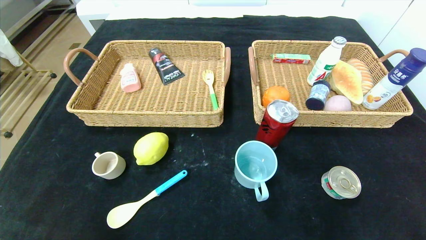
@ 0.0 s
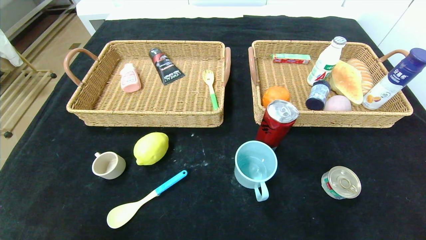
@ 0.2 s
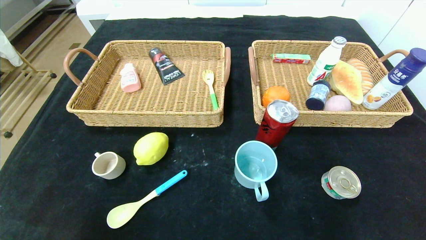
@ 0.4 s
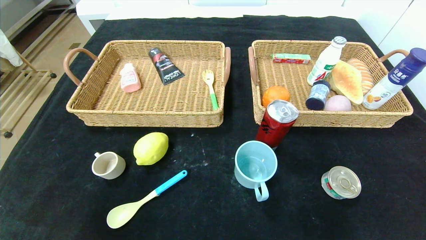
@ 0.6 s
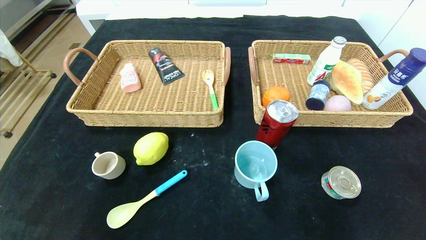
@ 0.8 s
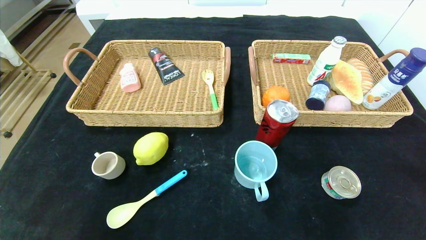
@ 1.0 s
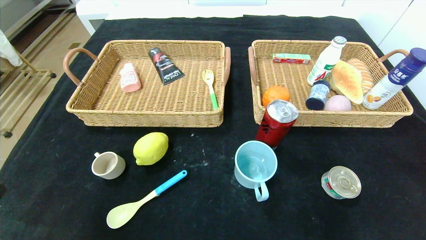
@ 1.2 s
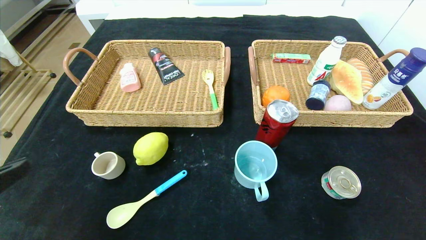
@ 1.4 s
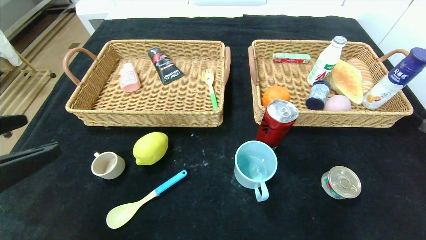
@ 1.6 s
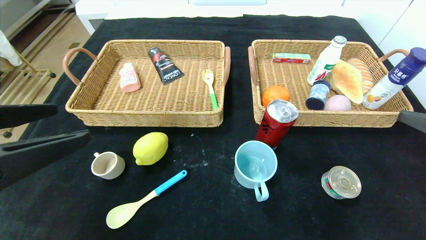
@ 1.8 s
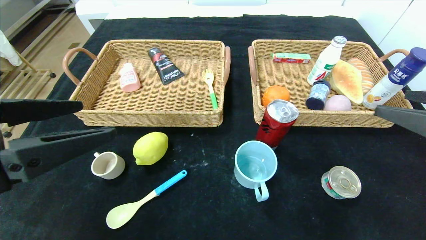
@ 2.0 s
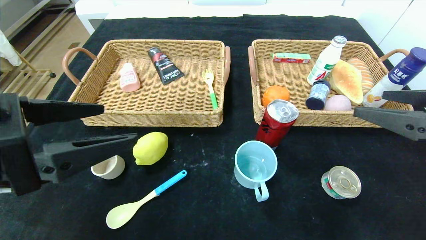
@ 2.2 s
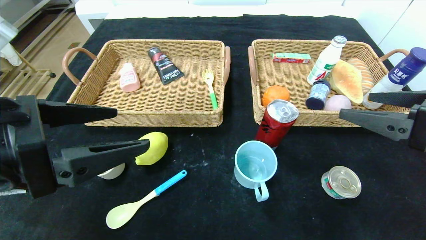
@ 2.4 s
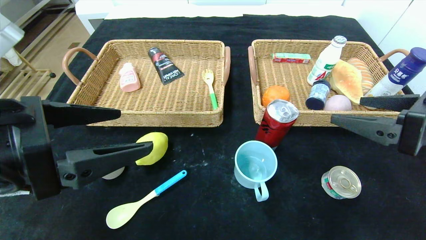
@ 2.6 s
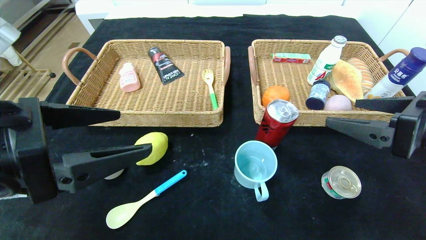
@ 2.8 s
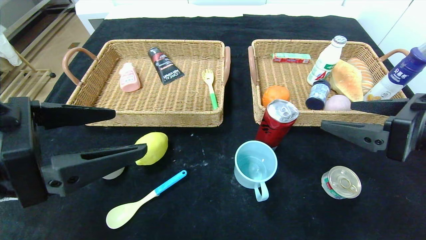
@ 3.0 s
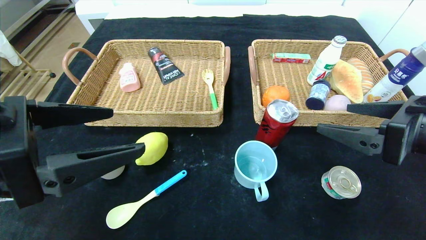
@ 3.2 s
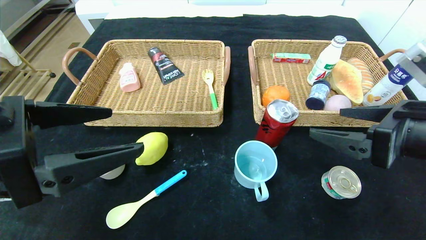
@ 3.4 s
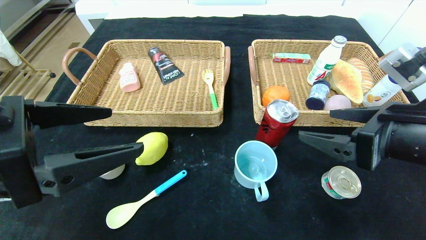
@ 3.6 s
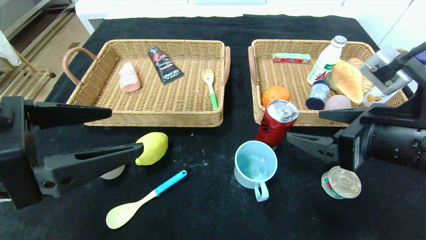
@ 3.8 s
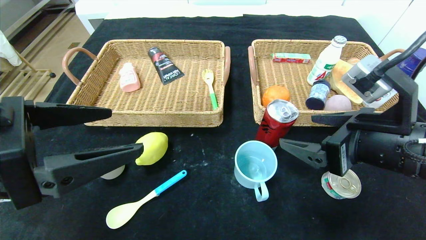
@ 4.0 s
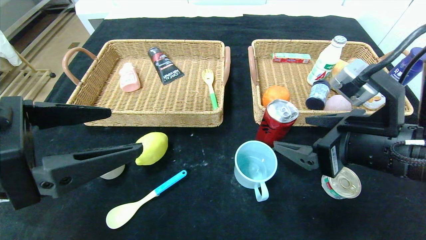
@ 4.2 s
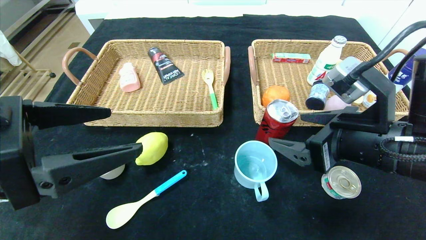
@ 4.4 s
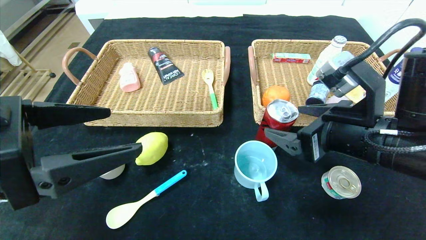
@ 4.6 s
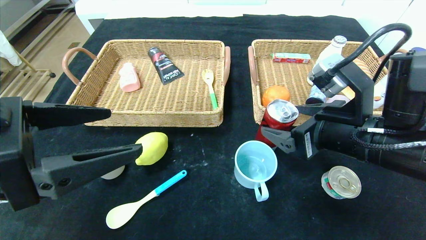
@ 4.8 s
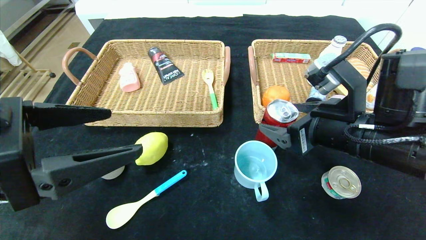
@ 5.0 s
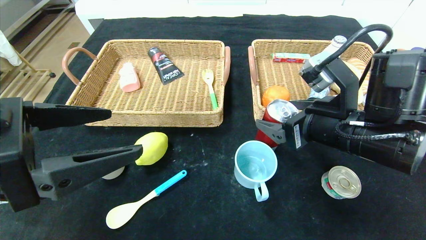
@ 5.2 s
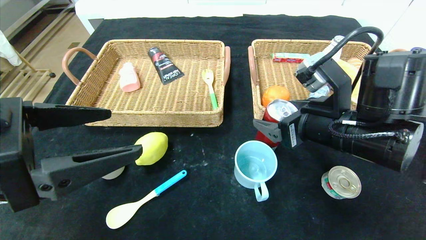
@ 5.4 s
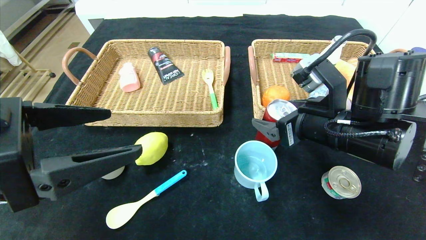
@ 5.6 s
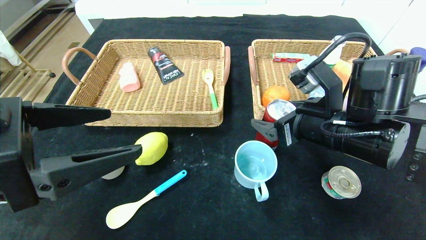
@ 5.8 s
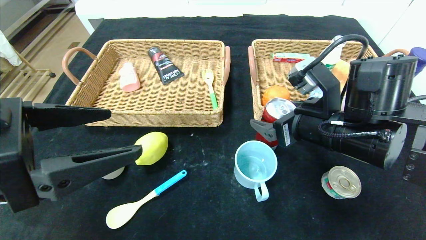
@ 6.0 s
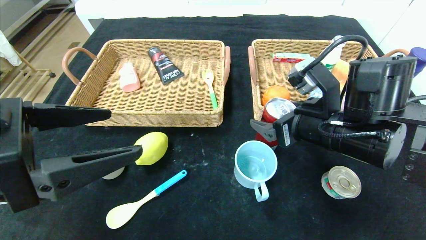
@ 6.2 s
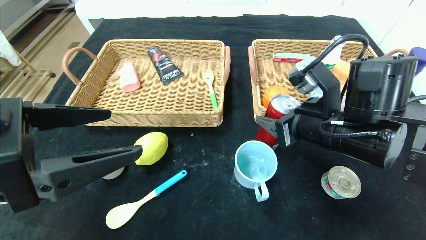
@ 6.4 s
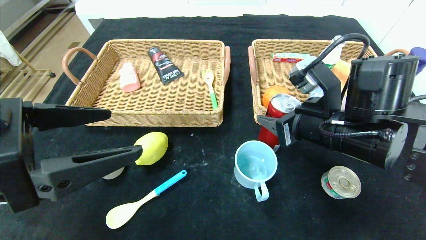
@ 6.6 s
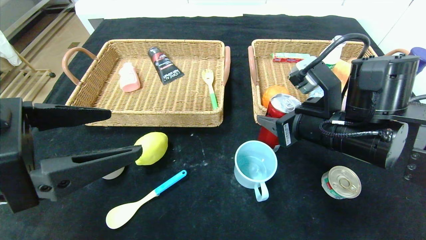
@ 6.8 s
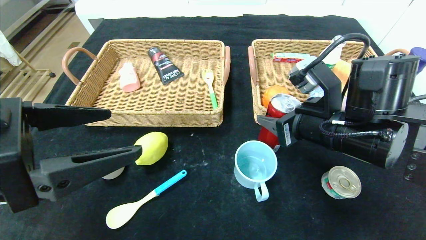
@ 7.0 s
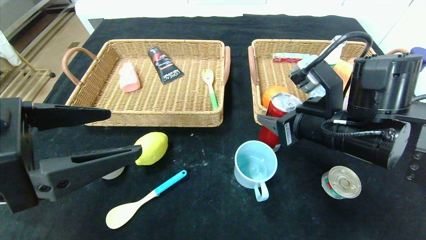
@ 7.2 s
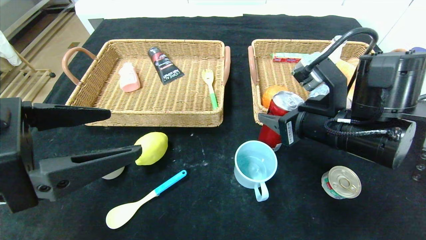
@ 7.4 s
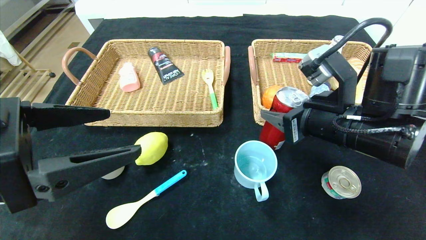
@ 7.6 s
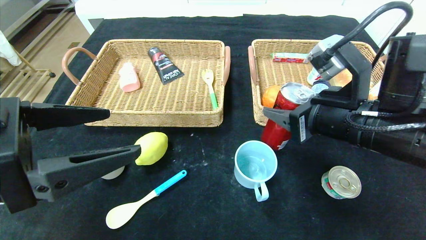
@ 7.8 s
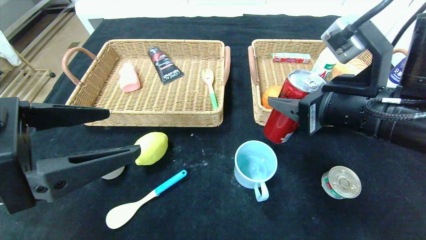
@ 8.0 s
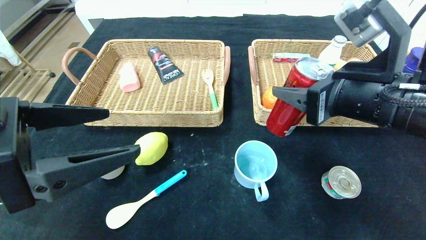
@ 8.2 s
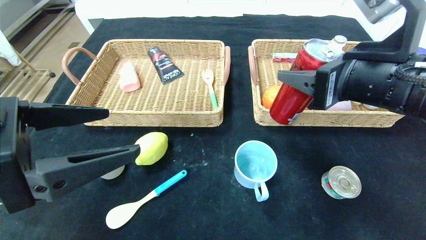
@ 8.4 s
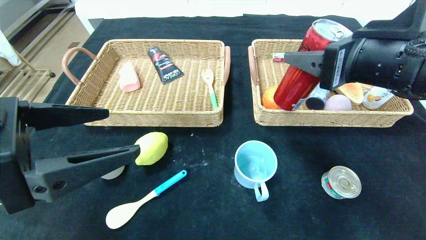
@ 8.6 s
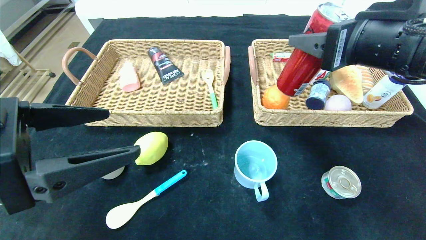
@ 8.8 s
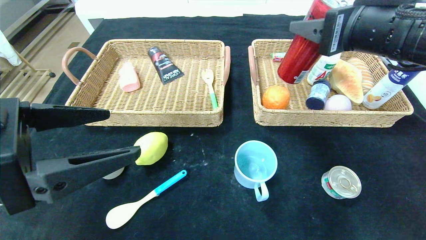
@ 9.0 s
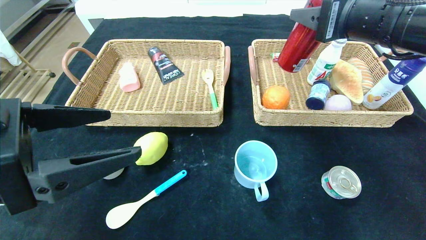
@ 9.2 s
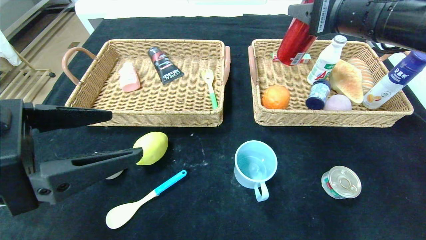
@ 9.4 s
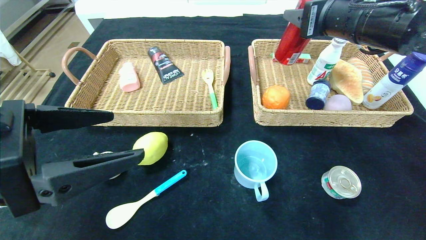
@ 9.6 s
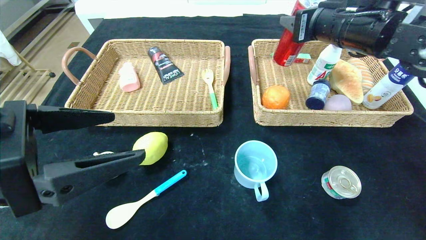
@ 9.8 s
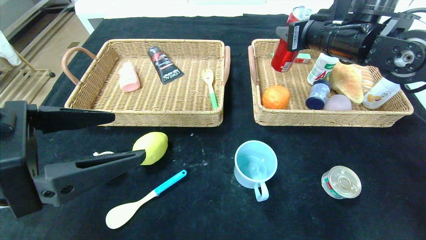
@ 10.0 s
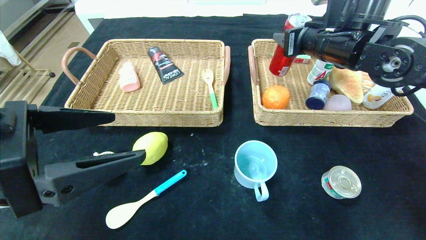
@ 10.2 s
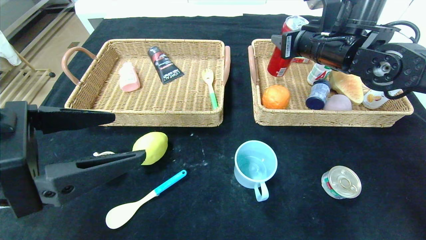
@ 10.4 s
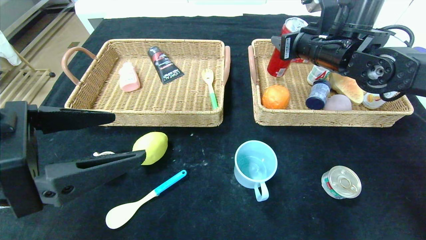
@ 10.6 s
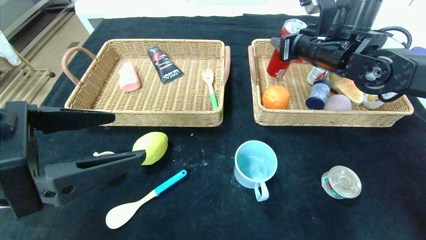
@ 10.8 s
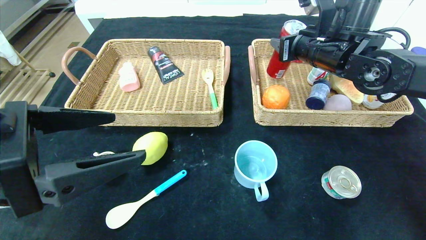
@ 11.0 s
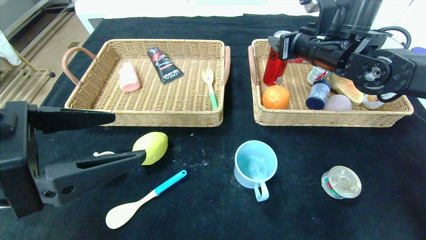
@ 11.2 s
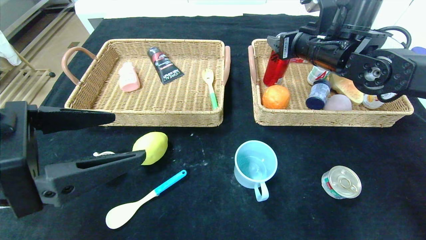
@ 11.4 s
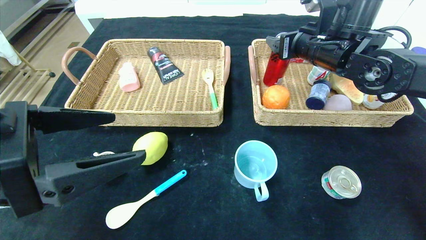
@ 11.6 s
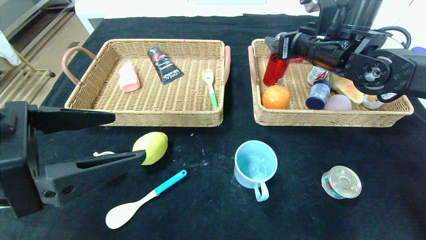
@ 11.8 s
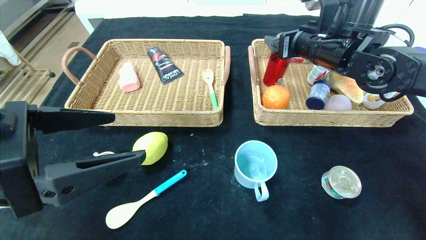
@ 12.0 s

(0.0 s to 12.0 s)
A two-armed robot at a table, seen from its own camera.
Step, 0.0 s - 12.0 s: Grasp the canned cola and put it in the right basket.
0.0 s - 1.6 s: Both grippers move upward and forward, roughly 25 cm.
1.6 s - 3.0 s: The left gripper travels forward by roughly 5 cm. The right gripper is displaced to the left and forward by roughly 10 cm.
3.0 s - 4.4 s: The right gripper moves to the left, roughly 5 cm.
4.4 s - 6.0 s: The right gripper shifts about 5 cm forward.
6.0 s - 7.6 s: The right gripper closes its fingers.
7.6 s - 9.0 s: The right gripper shifts roughly 10 cm upward.
9.0 s - 10.4 s: The right gripper travels forward by roughly 15 cm.
10.4 s - 12.0 s: The right gripper opens its fingers.

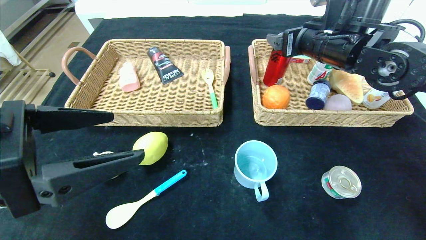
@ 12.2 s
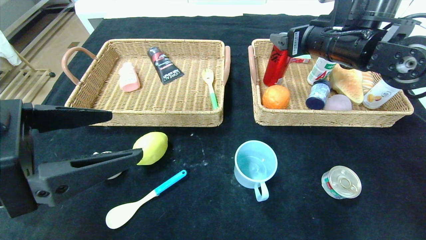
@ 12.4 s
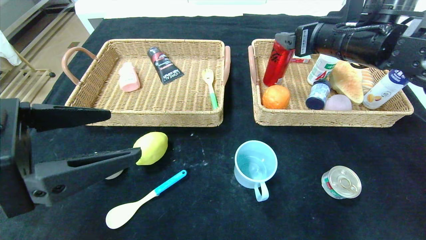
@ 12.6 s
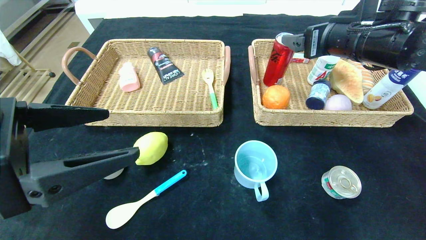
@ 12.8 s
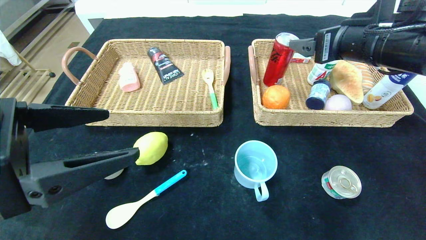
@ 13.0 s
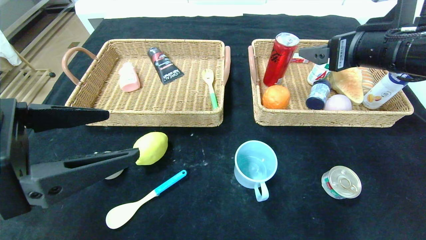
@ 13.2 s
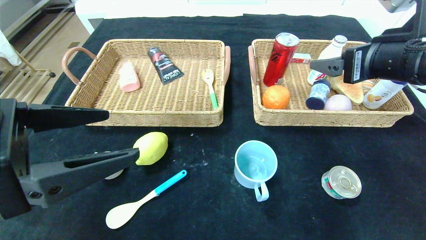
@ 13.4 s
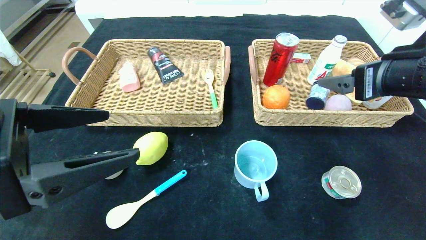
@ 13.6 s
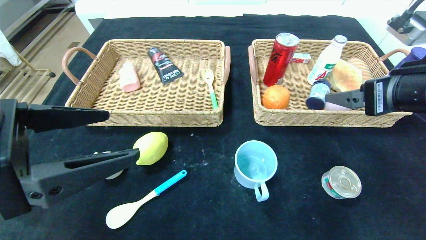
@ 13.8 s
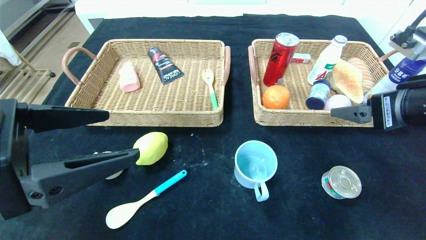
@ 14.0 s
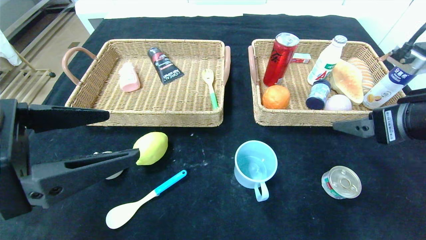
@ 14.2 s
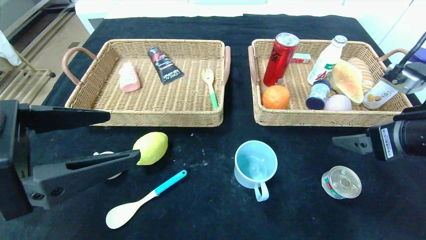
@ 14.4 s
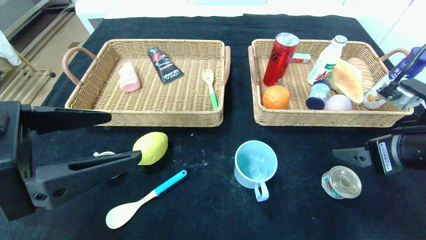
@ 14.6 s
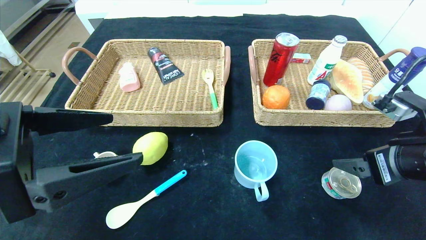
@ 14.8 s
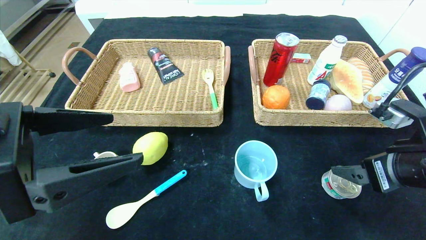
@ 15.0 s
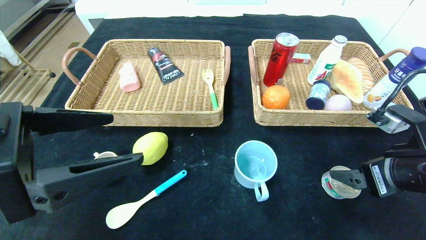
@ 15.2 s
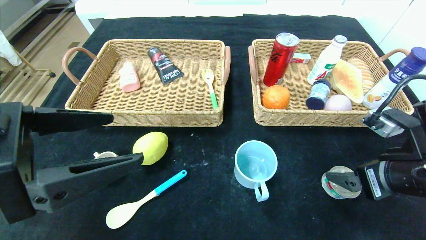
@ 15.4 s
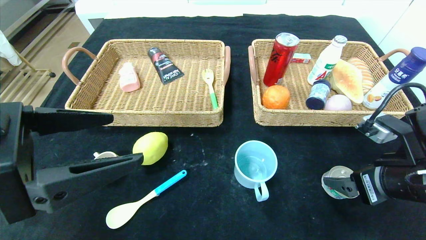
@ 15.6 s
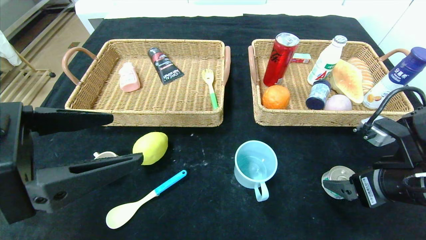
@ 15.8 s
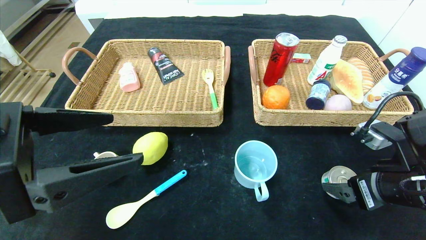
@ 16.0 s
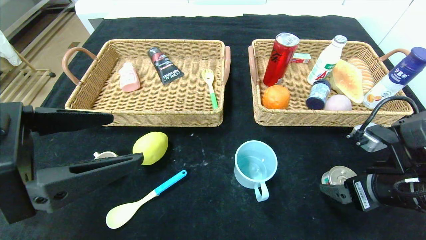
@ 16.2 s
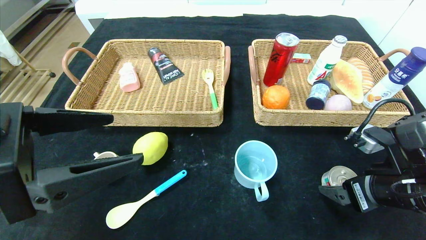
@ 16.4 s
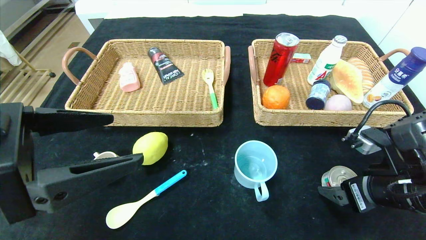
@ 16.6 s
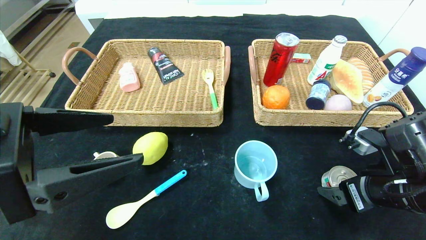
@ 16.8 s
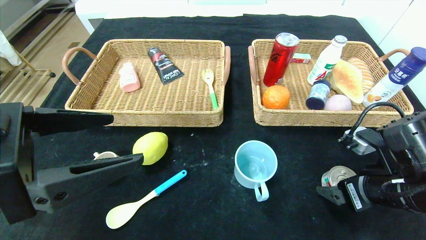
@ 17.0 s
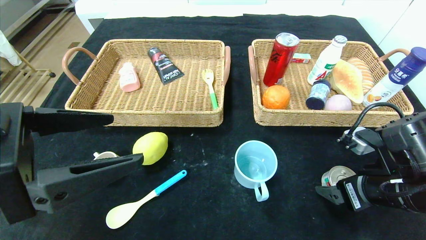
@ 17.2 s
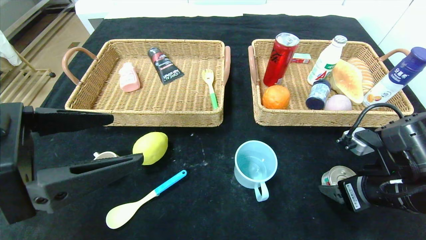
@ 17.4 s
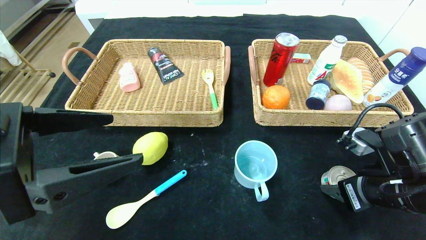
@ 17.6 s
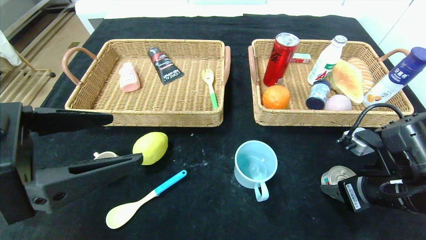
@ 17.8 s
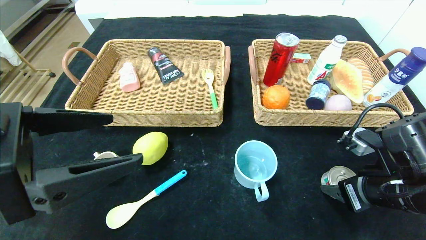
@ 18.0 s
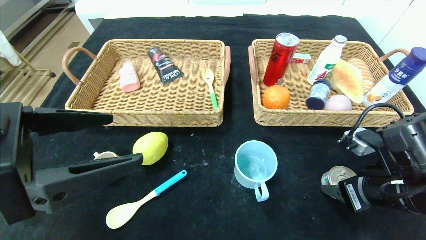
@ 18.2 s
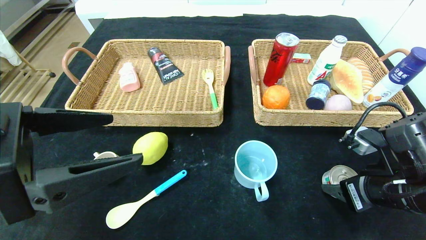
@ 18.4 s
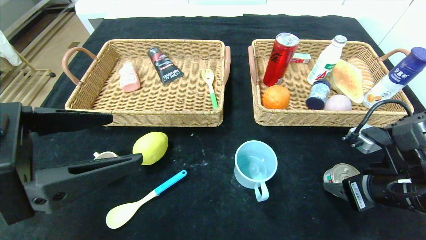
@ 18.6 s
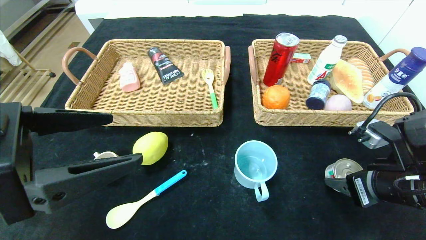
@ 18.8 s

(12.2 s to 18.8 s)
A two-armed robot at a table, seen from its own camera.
12.2 s - 13.8 s: The right gripper goes approximately 15 cm backward and to the right.
13.8 s - 15.4 s: The right gripper travels downward by approximately 10 cm.
15.4 s - 17.2 s: There are only small adjustments of the grippers.
17.2 s - 18.8 s: The right gripper closes its fingers.
